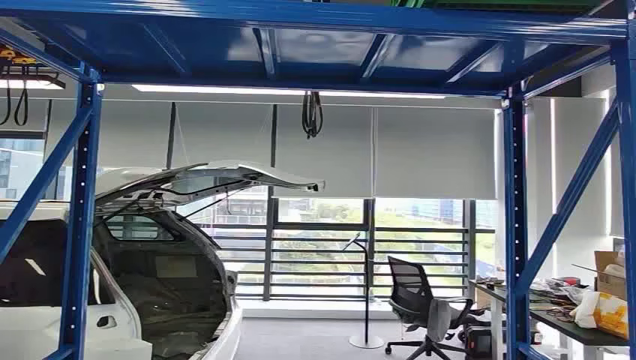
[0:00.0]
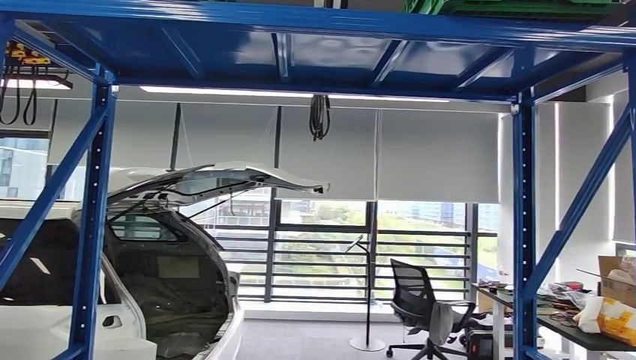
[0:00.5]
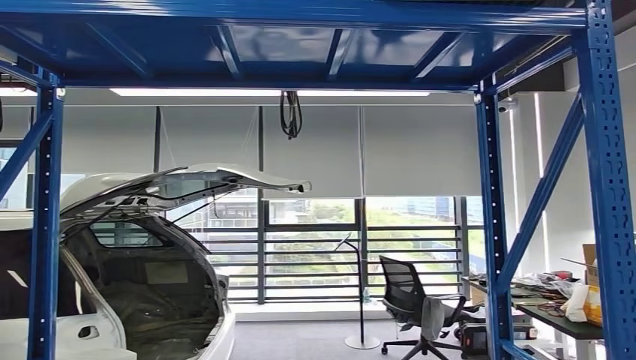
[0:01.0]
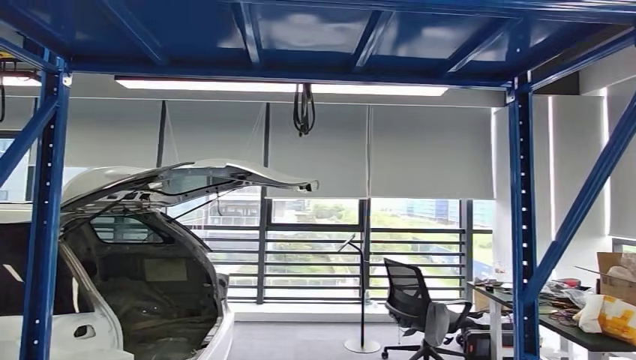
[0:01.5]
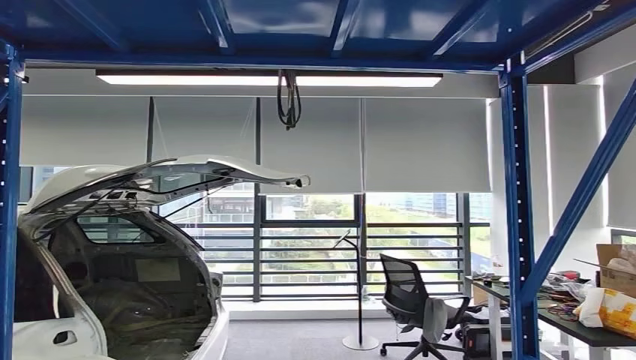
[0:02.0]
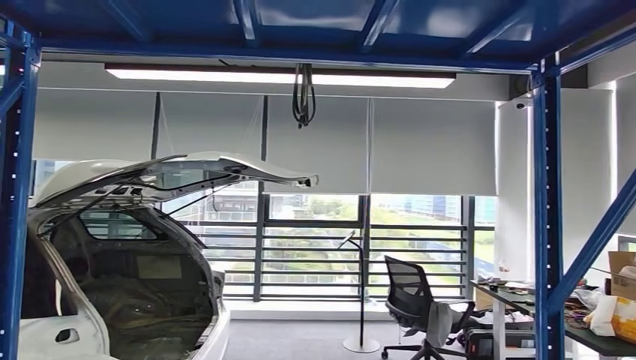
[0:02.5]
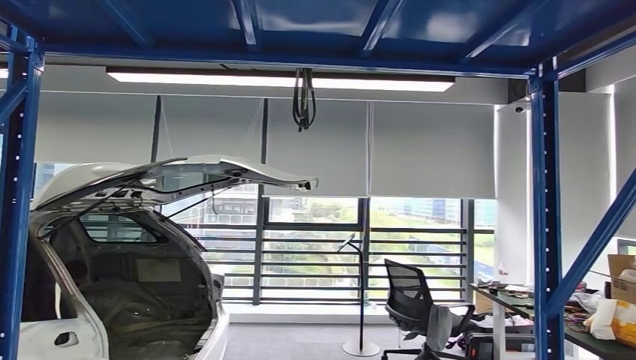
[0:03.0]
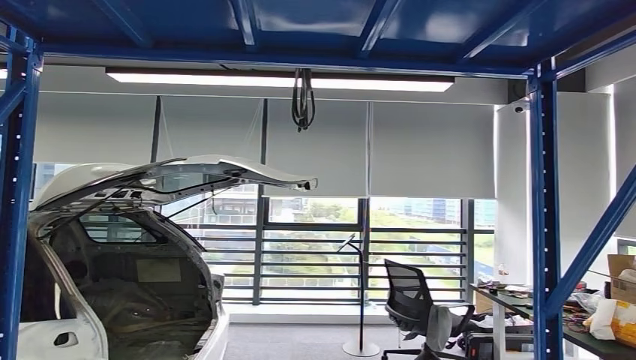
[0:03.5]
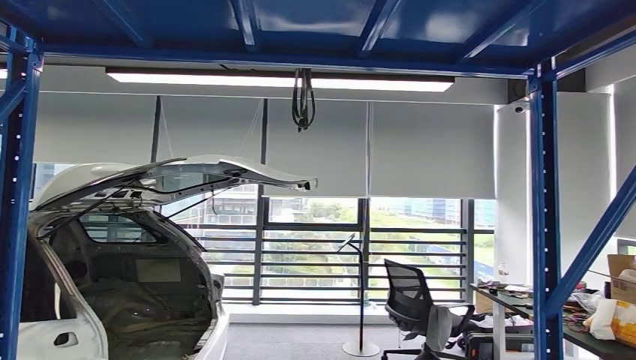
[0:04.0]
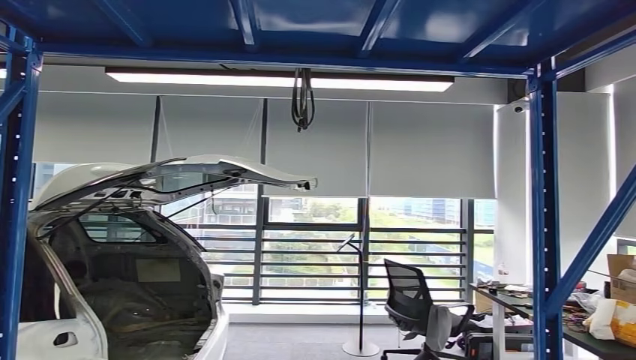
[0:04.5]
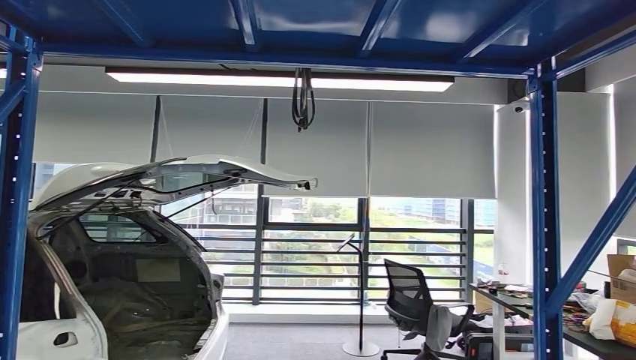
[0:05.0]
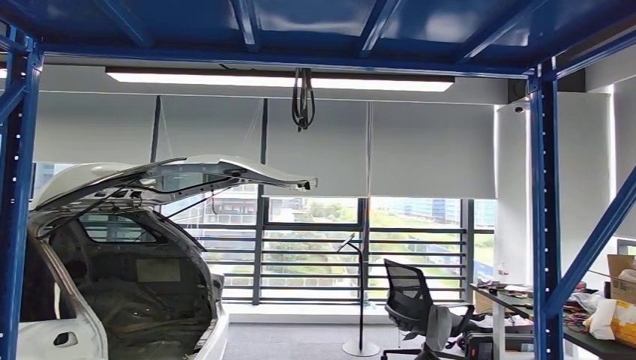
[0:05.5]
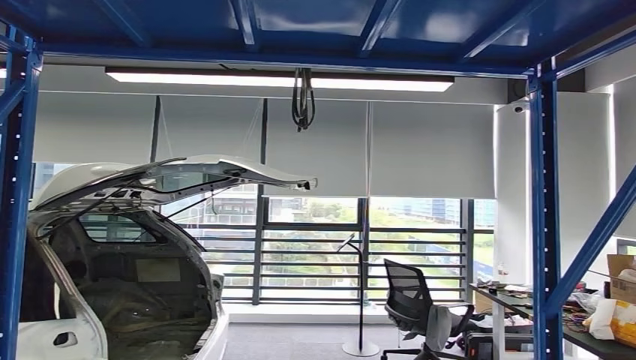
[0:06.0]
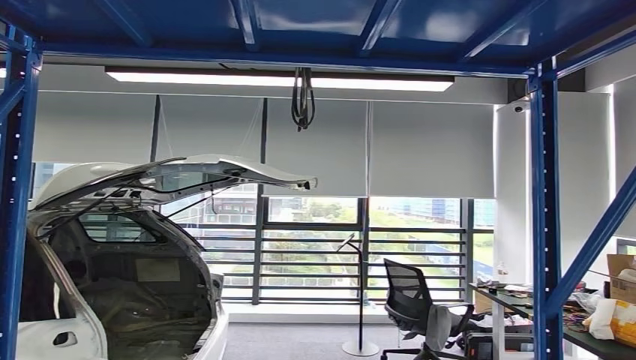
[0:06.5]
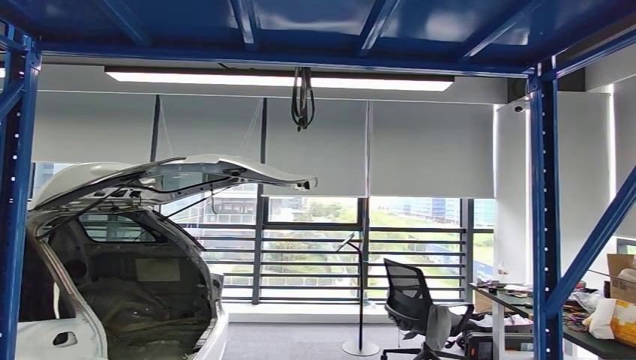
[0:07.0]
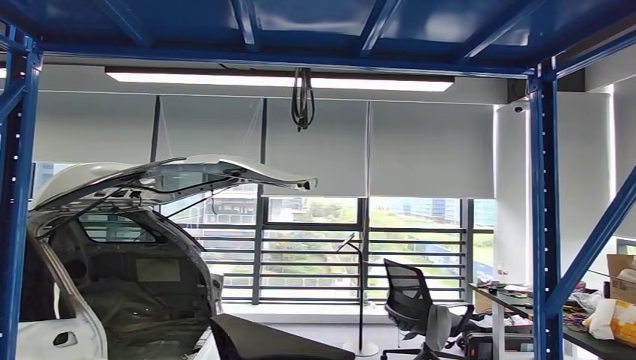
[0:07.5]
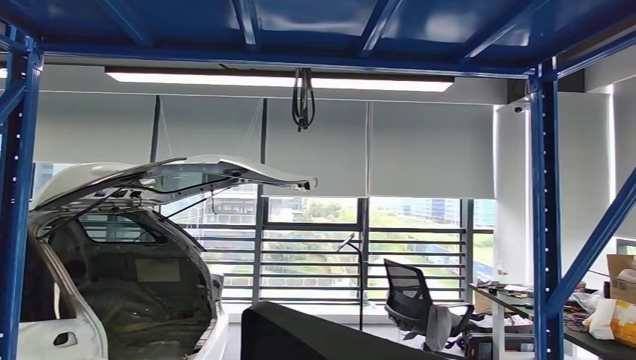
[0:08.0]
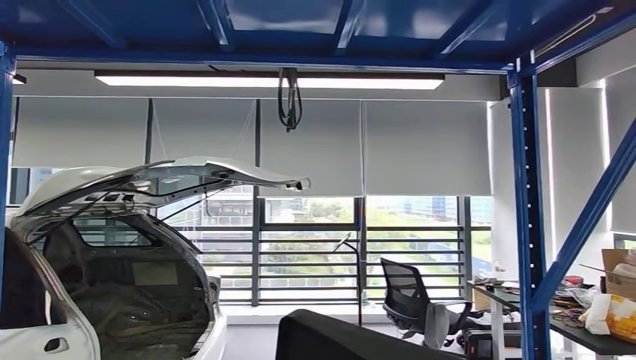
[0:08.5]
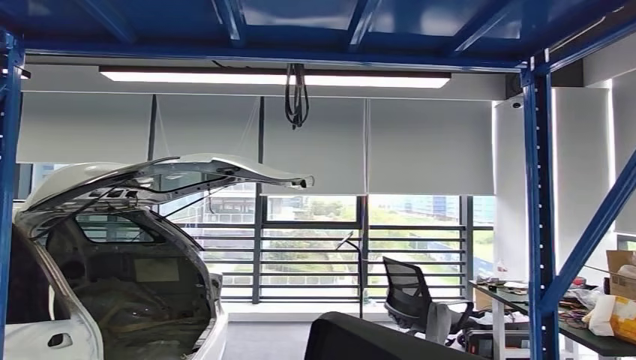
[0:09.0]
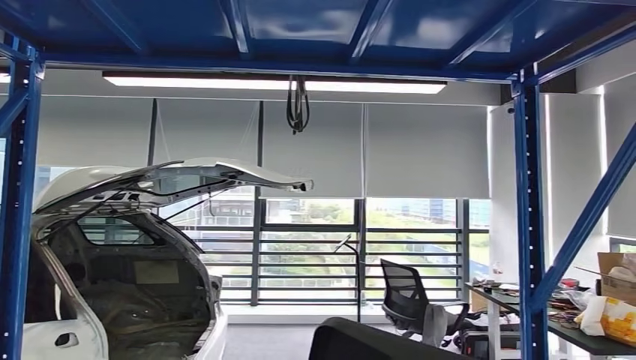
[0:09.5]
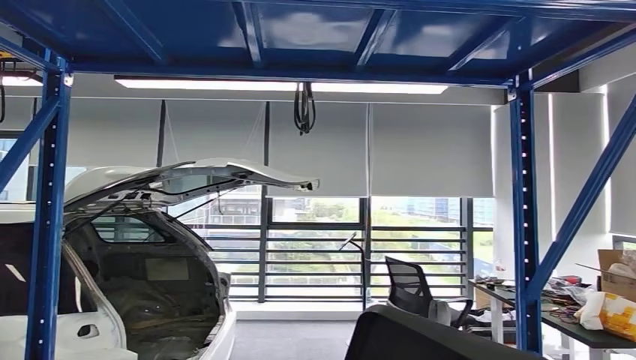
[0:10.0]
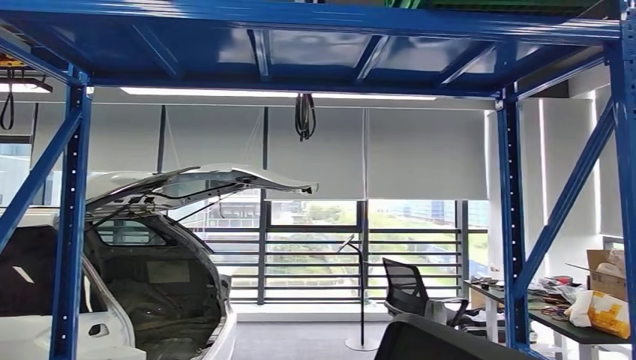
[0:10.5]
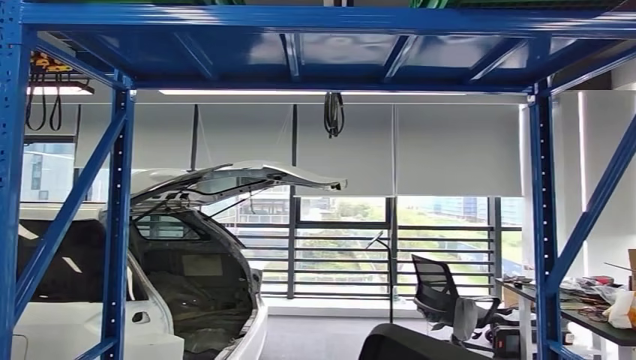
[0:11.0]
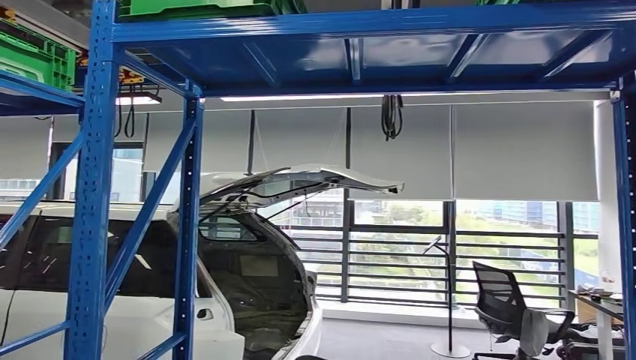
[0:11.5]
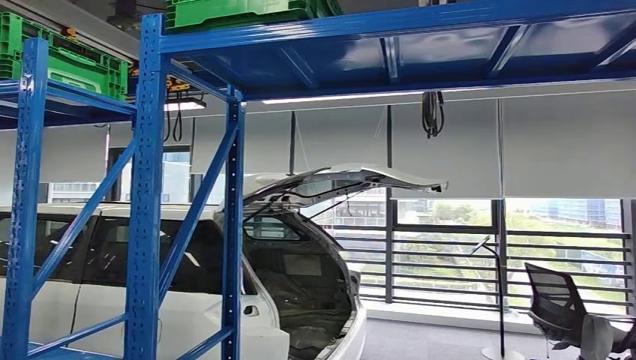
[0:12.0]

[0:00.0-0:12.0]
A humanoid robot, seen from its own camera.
Step, 0:00.0 to 0:07.5: Pick up the small component from the shelf.
0:06.0 to 0:08.0: The right hand travels backward and upward by some 15 cm.

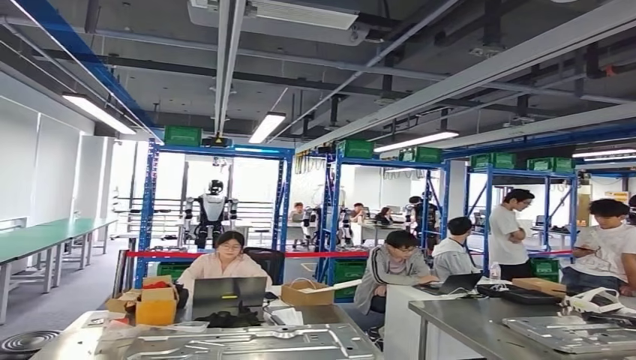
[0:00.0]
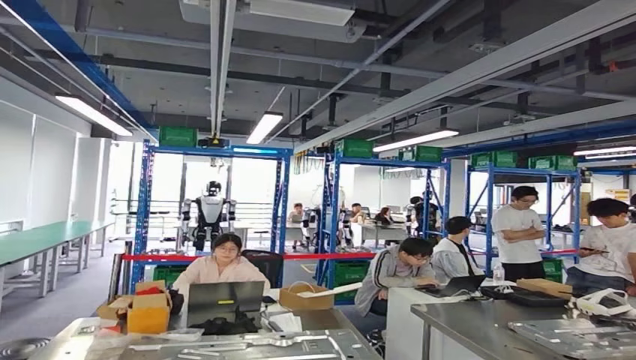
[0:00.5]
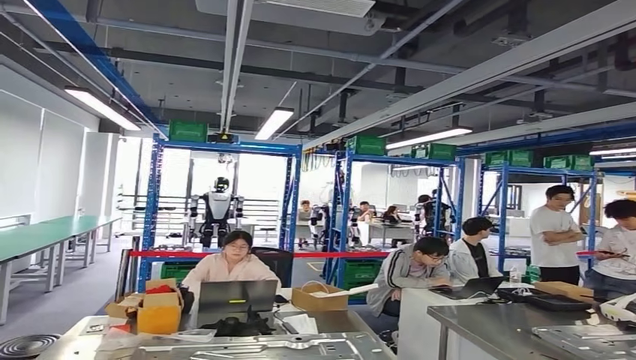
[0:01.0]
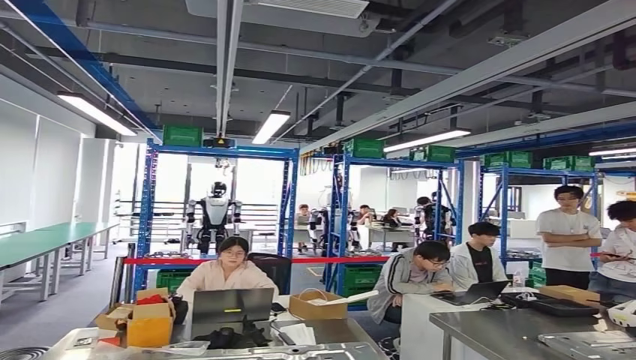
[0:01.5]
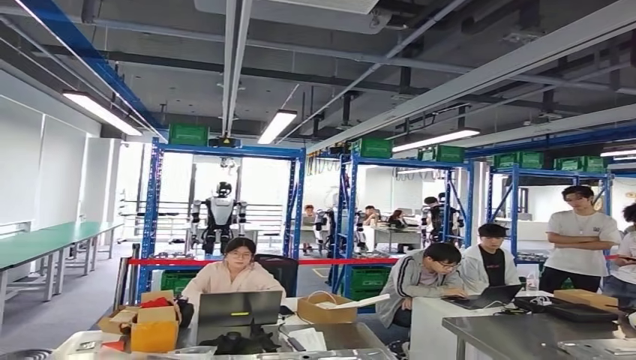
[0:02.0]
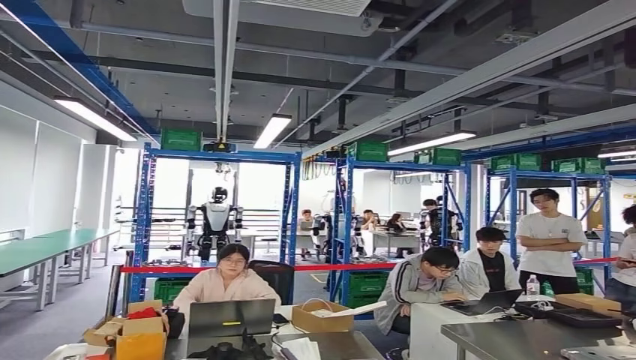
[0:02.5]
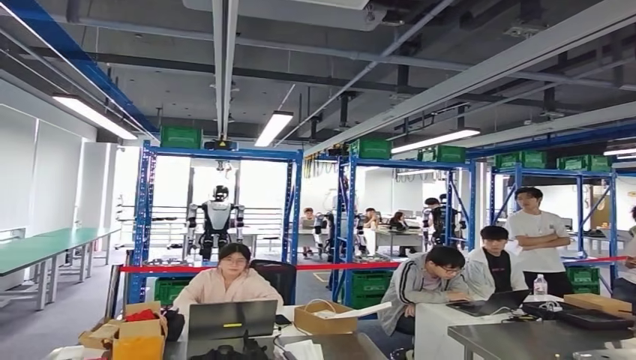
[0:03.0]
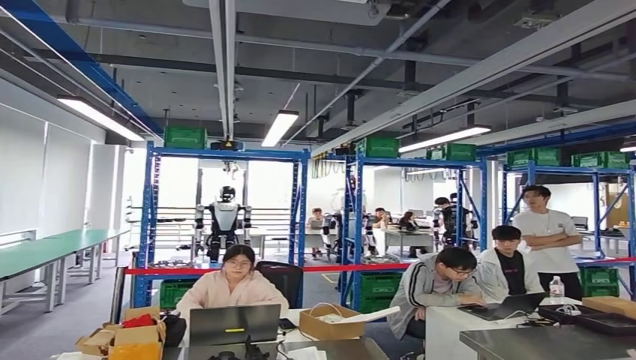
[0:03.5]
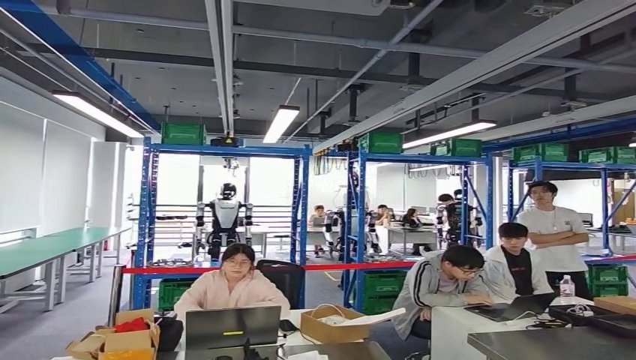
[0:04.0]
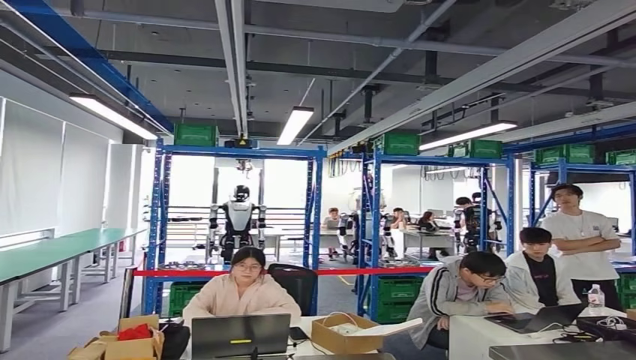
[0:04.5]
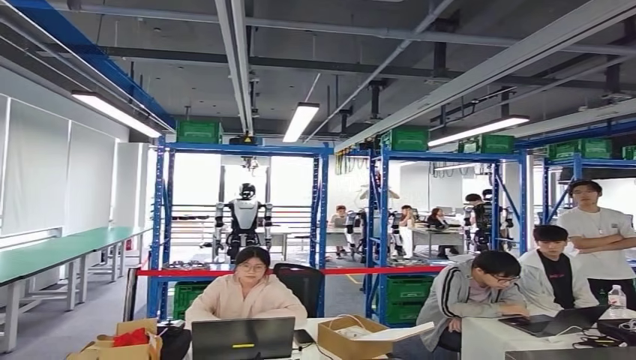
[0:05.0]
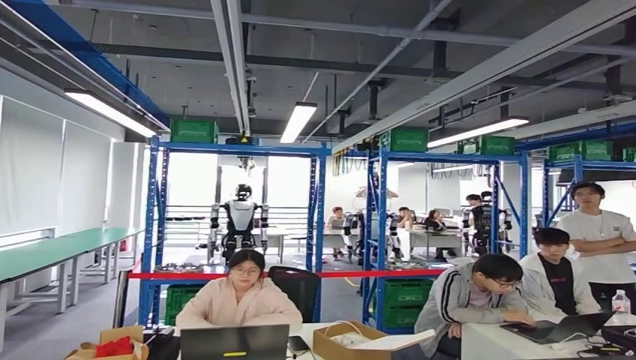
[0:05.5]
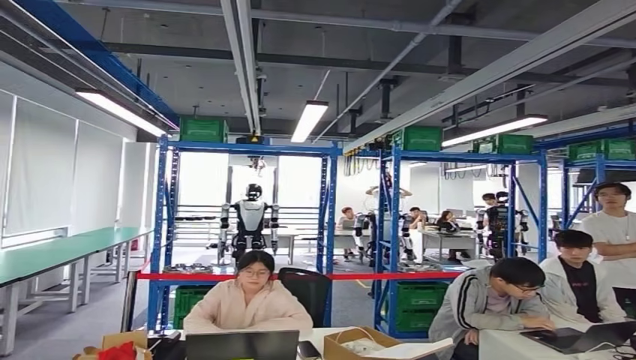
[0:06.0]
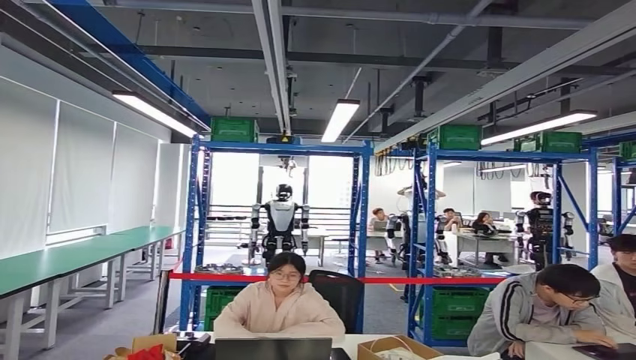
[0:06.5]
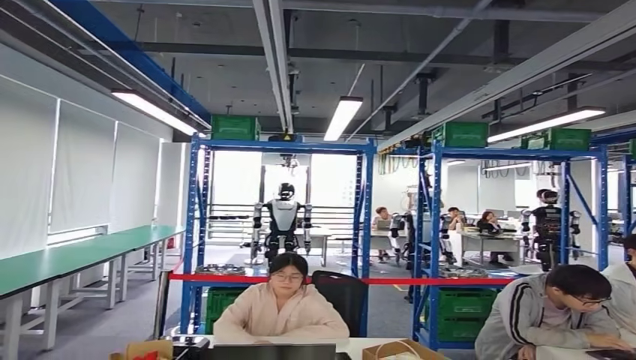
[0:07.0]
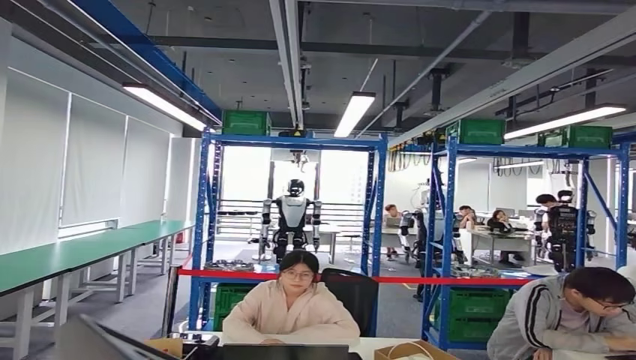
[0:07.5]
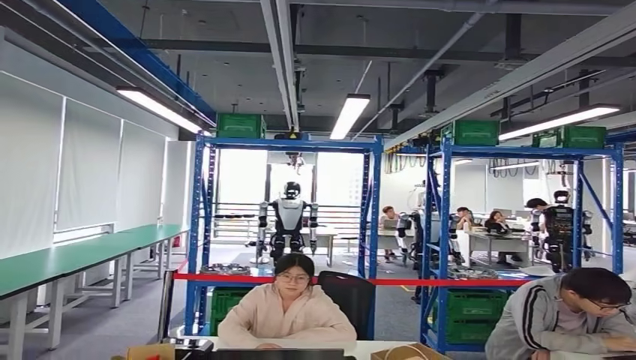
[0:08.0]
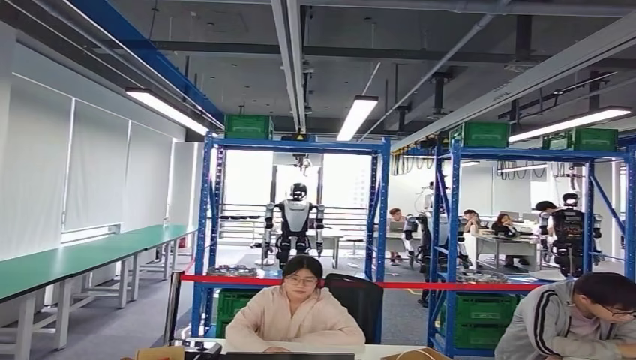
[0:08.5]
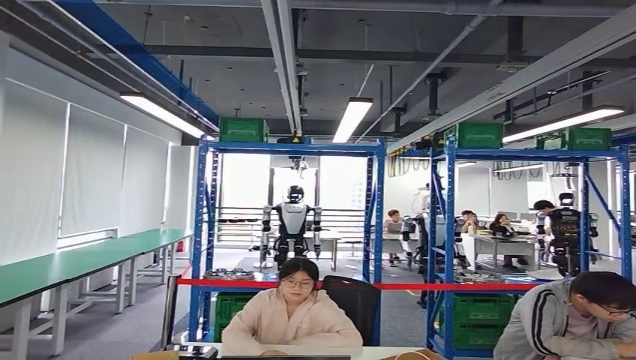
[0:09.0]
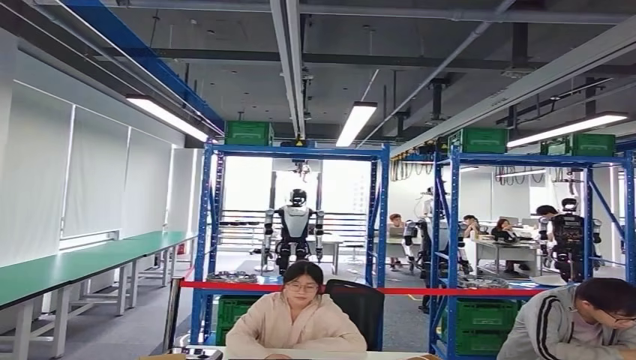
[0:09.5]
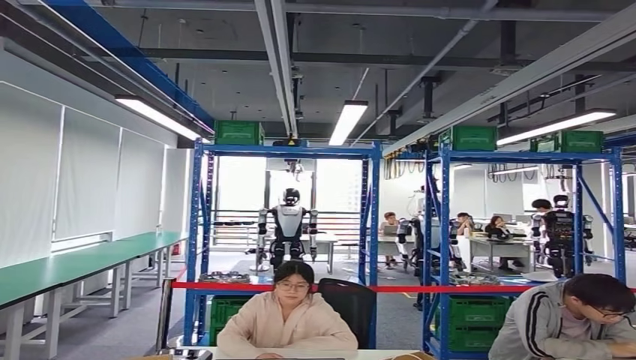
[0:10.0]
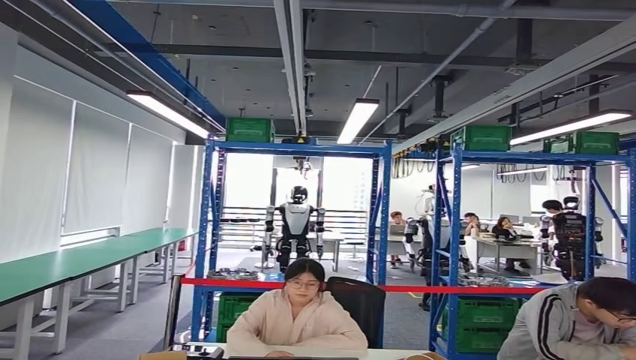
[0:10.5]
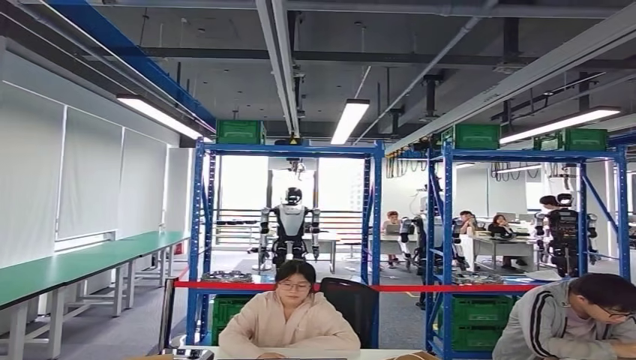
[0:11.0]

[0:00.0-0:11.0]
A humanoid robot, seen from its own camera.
Step, 0:00.0 to 0:06.5: Move the small component to the workbench.
Step, 0:07.0 to 0:10.0: Insert the small component into the corresponding slot on the workbench.
